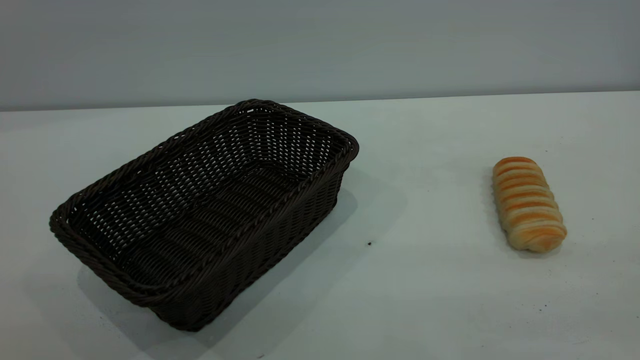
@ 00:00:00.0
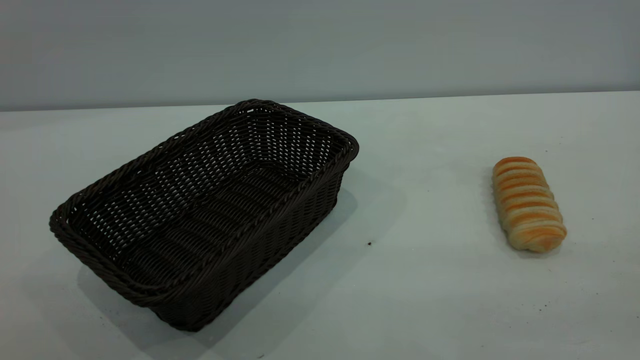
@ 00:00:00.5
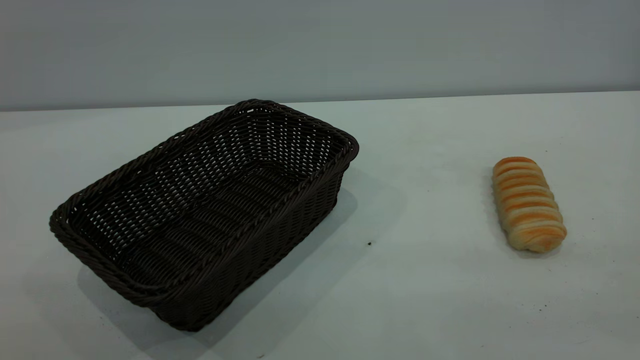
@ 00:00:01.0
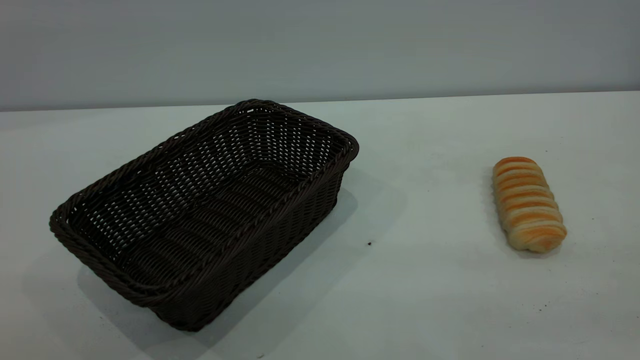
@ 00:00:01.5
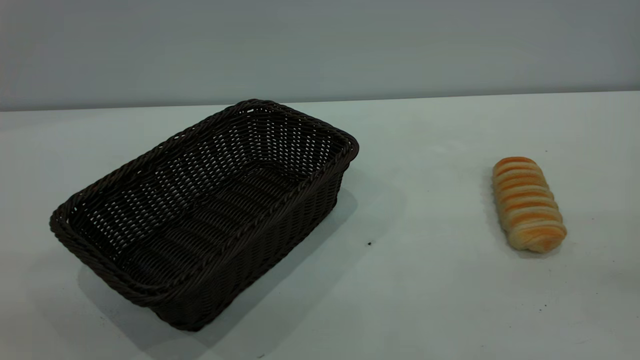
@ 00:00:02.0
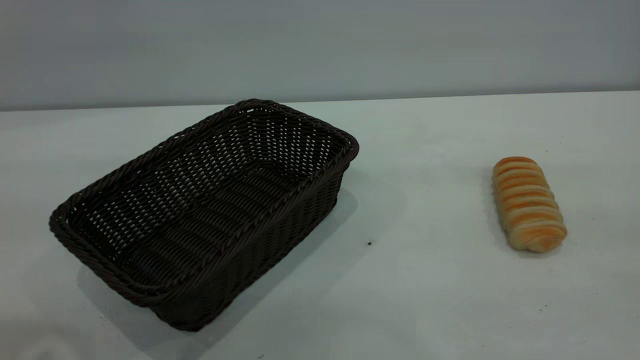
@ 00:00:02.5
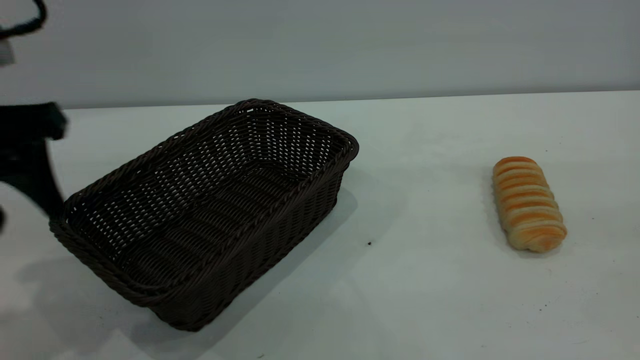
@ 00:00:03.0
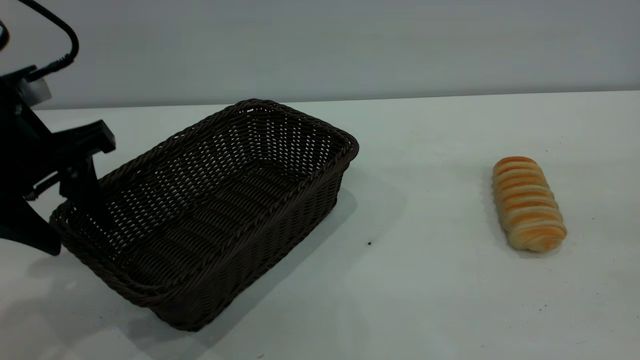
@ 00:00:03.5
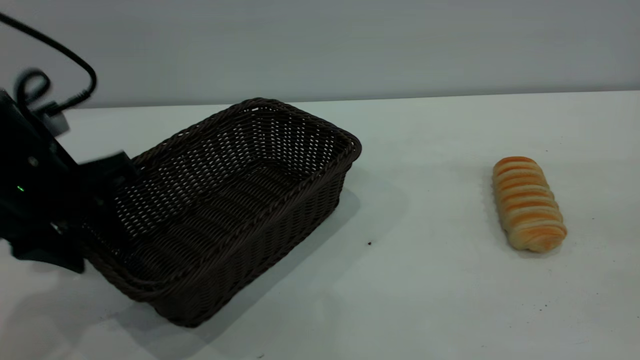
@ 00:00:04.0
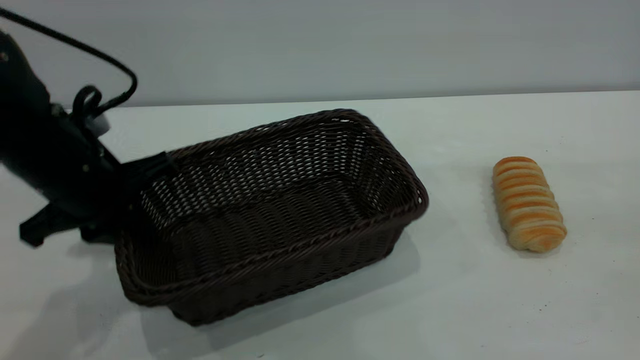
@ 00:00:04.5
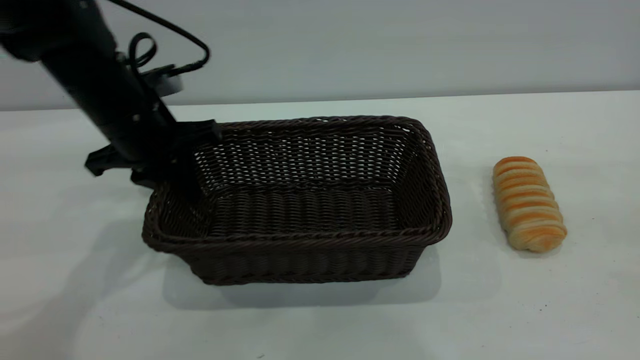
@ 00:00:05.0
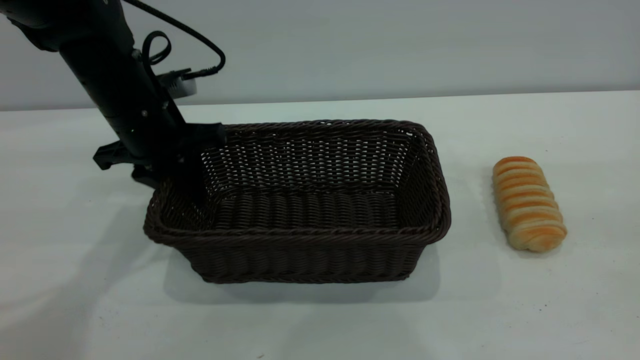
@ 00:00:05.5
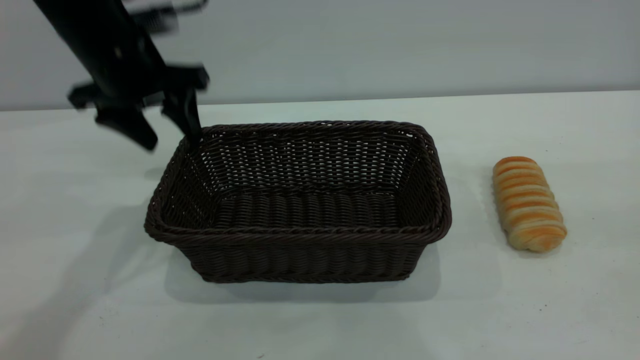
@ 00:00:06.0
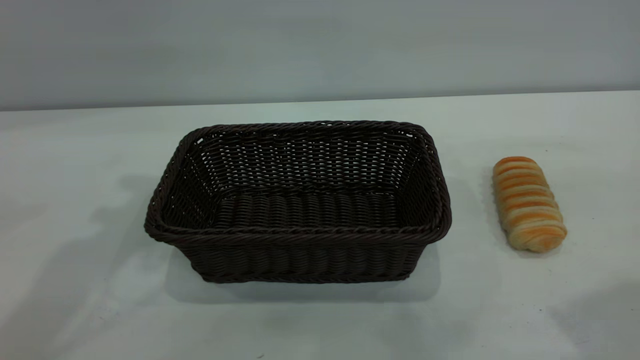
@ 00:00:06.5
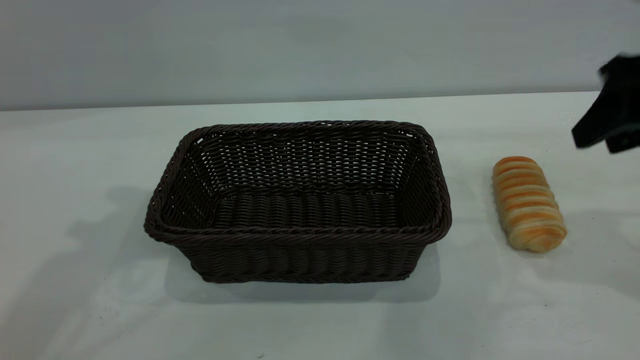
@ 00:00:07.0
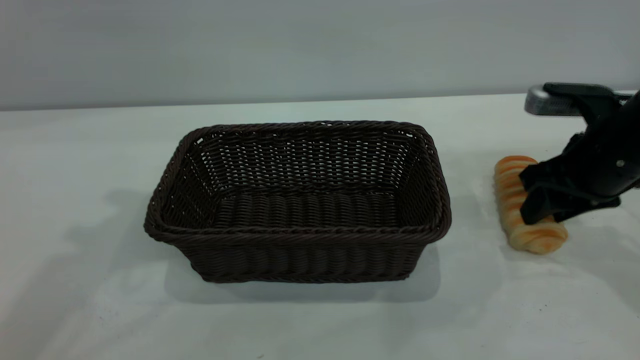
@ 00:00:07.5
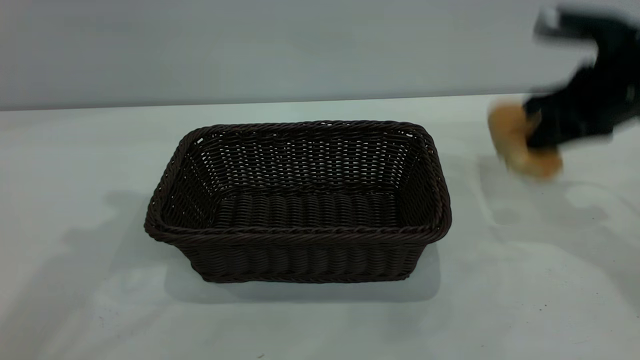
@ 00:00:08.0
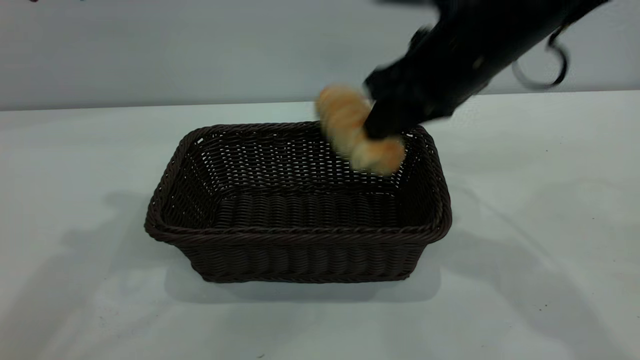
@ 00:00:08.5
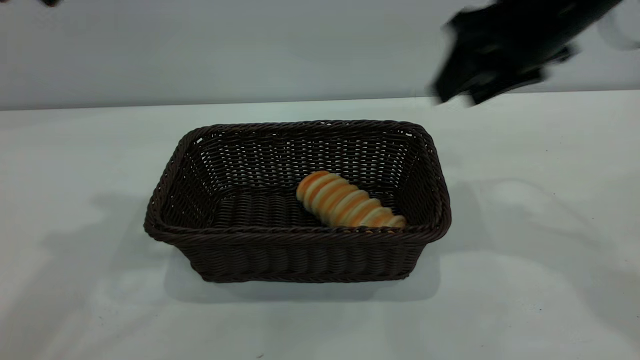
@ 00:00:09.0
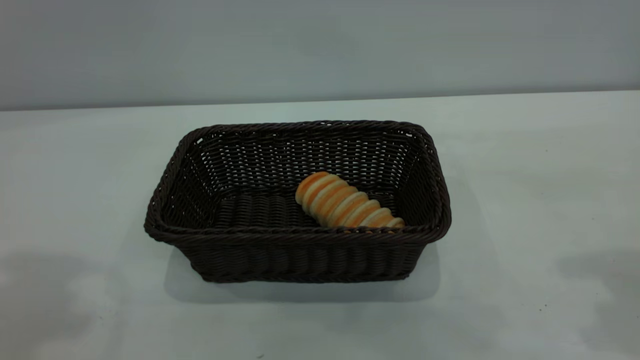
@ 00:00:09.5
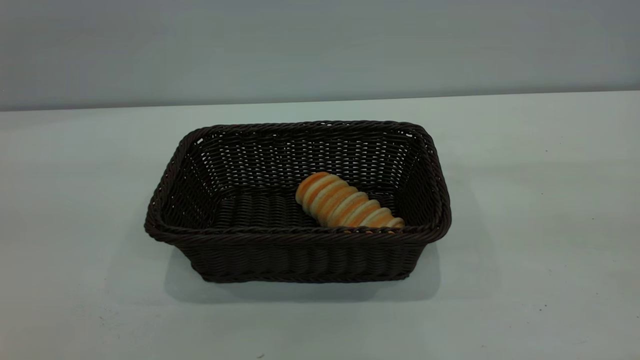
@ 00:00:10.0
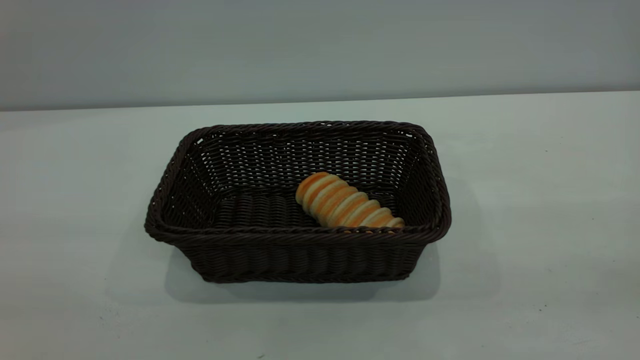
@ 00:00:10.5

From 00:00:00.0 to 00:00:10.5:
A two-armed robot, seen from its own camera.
Task of the whole recording: One hand grasps the black basket and places it in the middle of the table, while the other hand picks up the long bread and puts it into the black basket.
Step, from 00:00:00.0 to 00:00:06.0: Move the basket to the center of view.
Step, from 00:00:08.5 to 00:00:09.0: place the bread into the basket.
From 00:00:02.0 to 00:00:04.0: The left gripper is displaced forward and downward by approximately 35 cm.
From 00:00:04.0 to 00:00:06.5: The left gripper shifts roughly 20 cm upward, and closes and opens again. Meanwhile the right gripper shifts roughly 10 cm forward.
From 00:00:06.5 to 00:00:08.5: The right gripper heads to the left, forward and downward, covering some 25 cm, and closes.
From 00:00:08.5 to 00:00:10.5: The left gripper heads backward, covering about 30 cm; the right gripper is displaced backward, to the right and upward by roughly 35 cm, and opens.

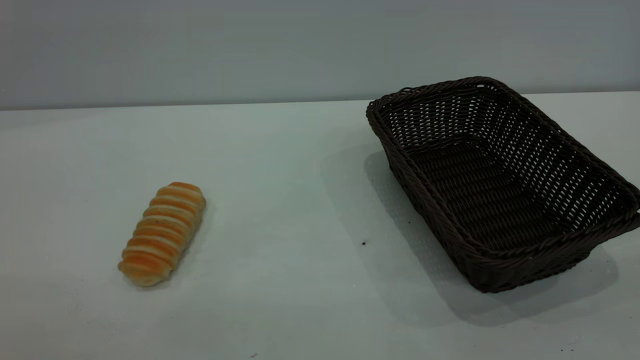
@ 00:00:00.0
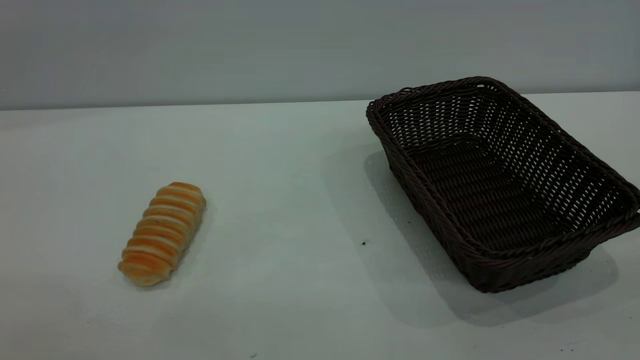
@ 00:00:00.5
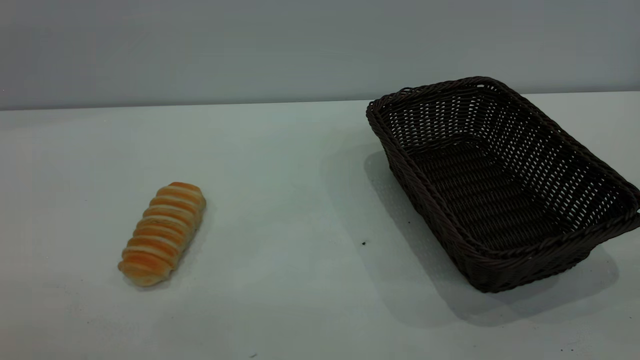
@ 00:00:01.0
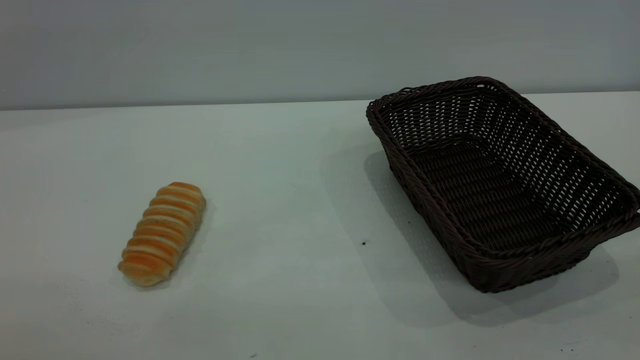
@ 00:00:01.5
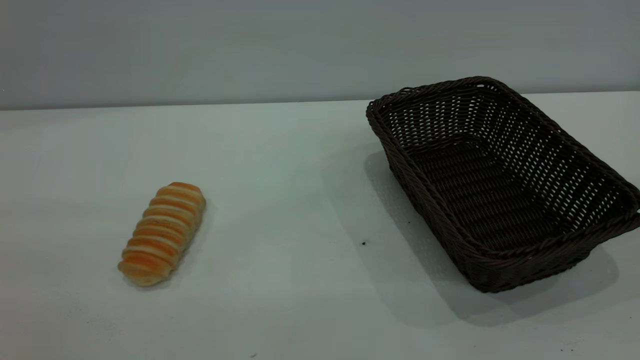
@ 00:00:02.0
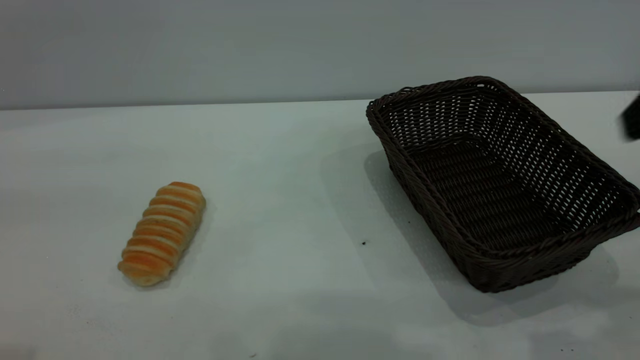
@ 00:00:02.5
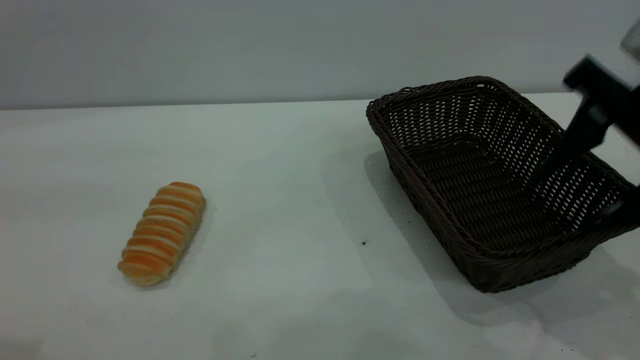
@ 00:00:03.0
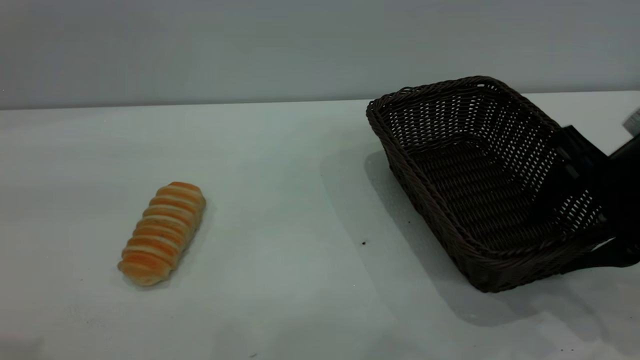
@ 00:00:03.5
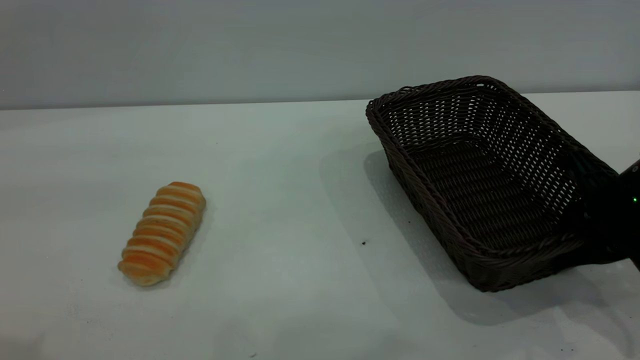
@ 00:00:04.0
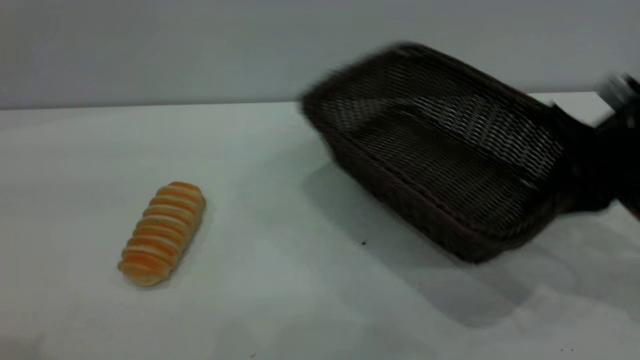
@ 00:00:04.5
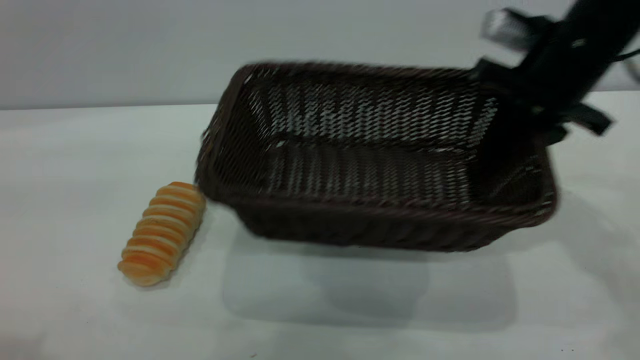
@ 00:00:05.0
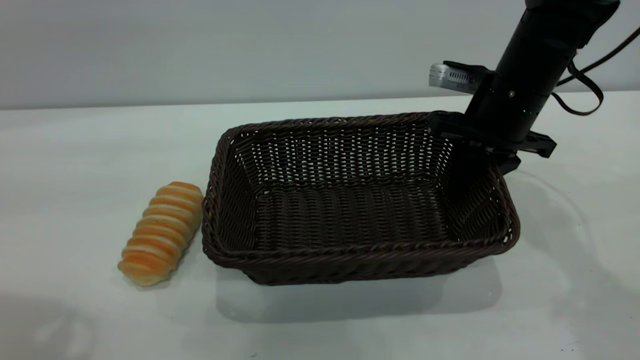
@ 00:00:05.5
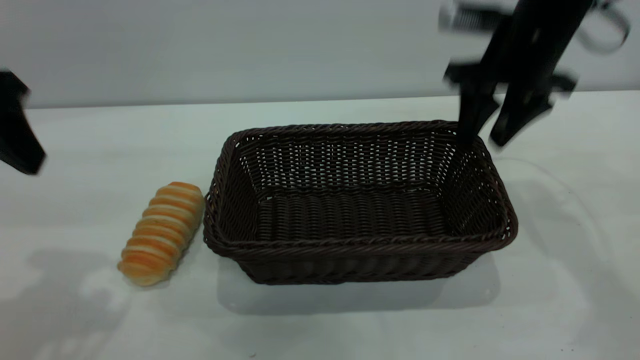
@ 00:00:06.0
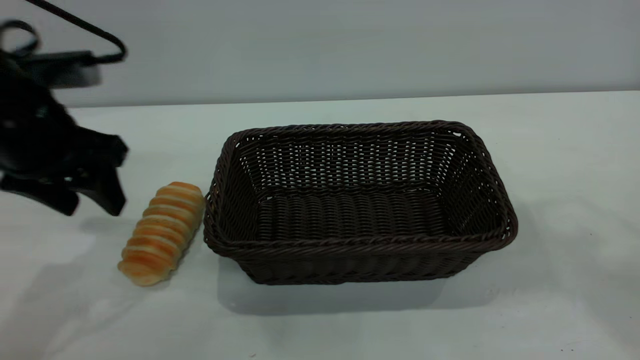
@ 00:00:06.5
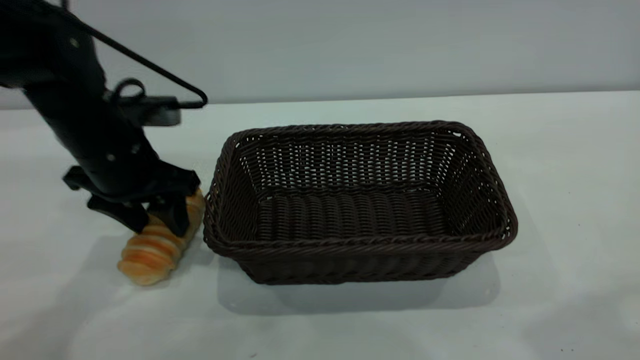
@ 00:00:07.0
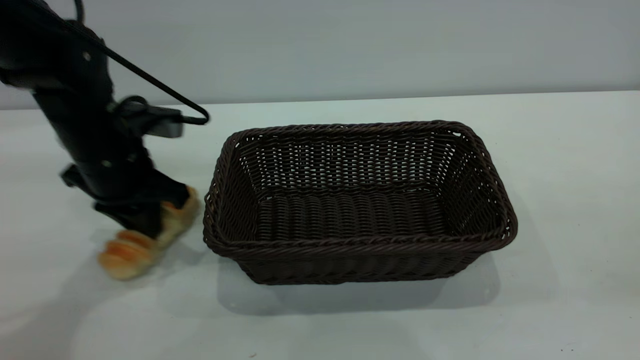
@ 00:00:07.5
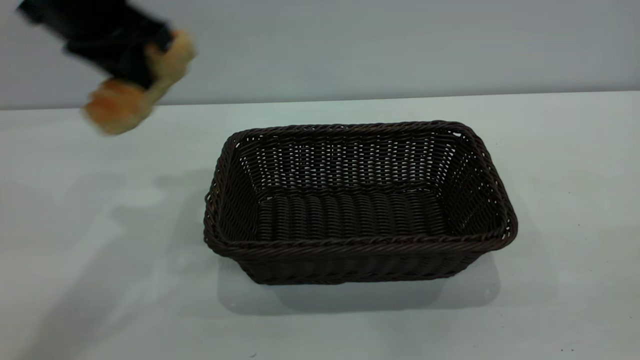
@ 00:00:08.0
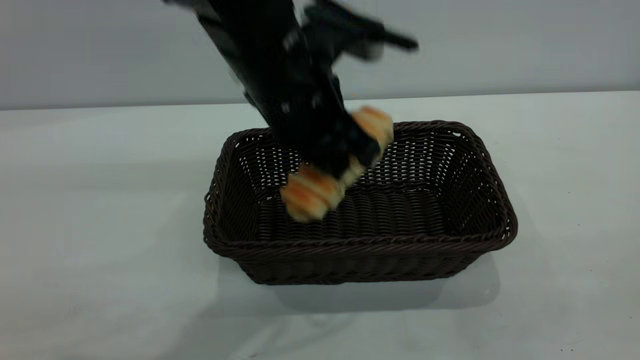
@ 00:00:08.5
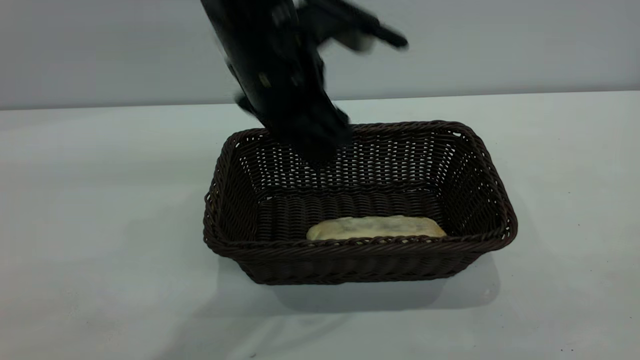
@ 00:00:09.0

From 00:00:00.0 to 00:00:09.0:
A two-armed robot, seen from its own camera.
Task of the whole recording: One hand grasps the black basket and places it in the middle of the table, while the other hand picks up the long bread and puts it into the black basket.
Step, from 00:00:00.0 to 00:00:06.0: Move the basket to the center of view.
From 00:00:02.0 to 00:00:04.5: The left gripper goes approximately 10 cm forward, while the right gripper moves forward and downward, approximately 35 cm, and closes its fingers.
From 00:00:04.5 to 00:00:07.0: The right gripper moves upward and backward, roughly 35 cm, and opens its fingers; the left gripper travels downward and forward by roughly 35 cm.
From 00:00:07.0 to 00:00:09.0: The left gripper moves to the right and upward, some 20 cm, and closes, then reopens, while the right gripper travels backward and downward by approximately 25 cm.
